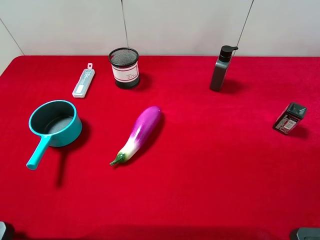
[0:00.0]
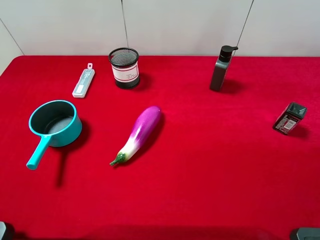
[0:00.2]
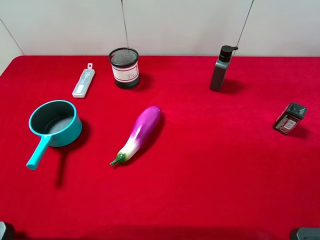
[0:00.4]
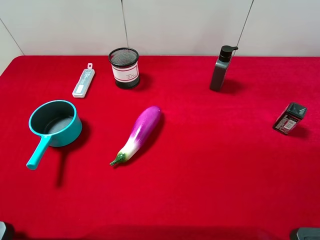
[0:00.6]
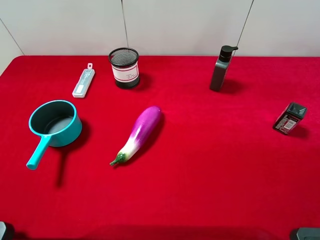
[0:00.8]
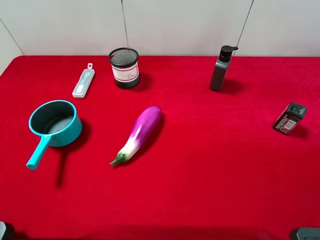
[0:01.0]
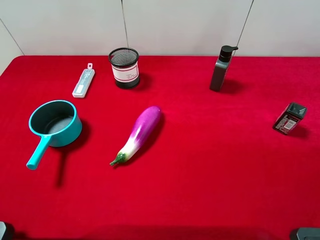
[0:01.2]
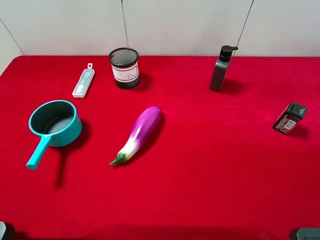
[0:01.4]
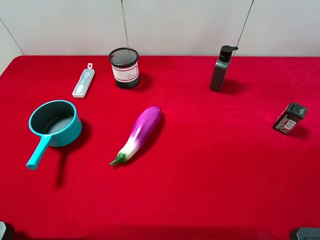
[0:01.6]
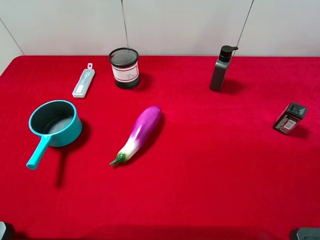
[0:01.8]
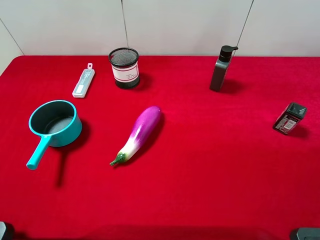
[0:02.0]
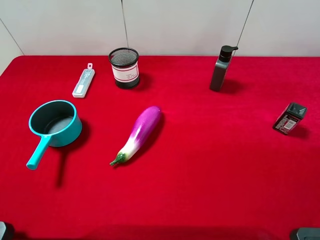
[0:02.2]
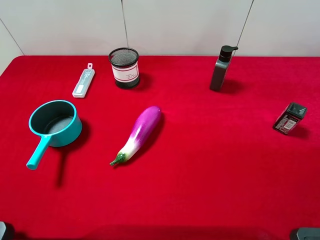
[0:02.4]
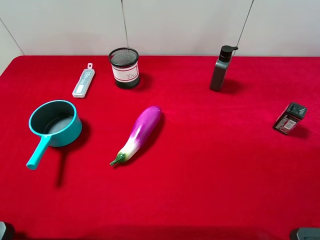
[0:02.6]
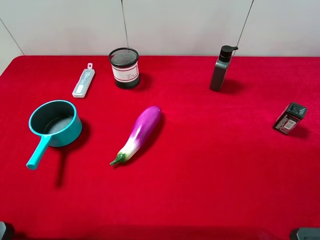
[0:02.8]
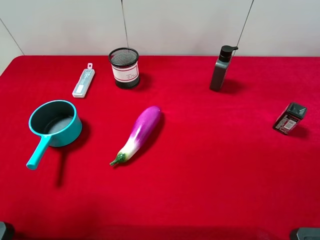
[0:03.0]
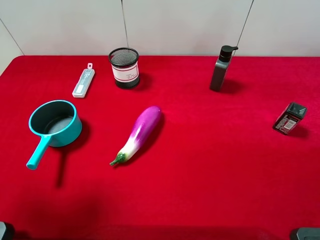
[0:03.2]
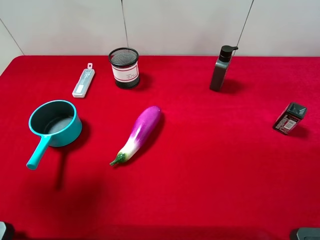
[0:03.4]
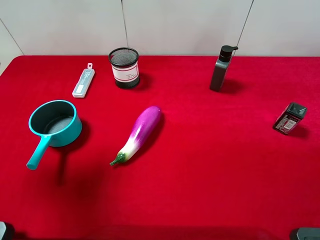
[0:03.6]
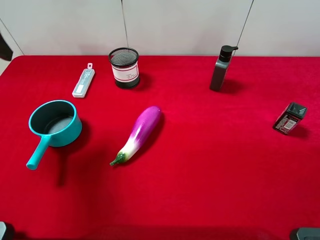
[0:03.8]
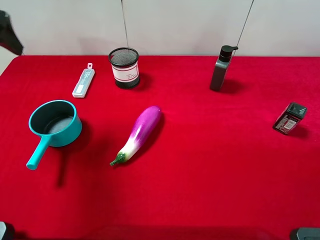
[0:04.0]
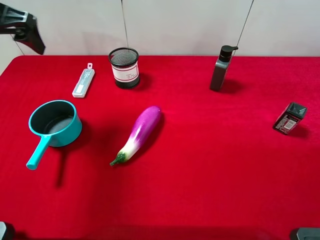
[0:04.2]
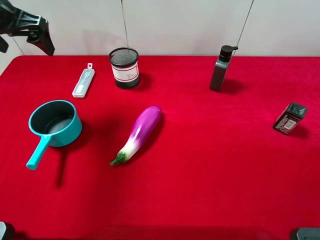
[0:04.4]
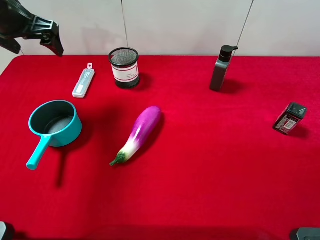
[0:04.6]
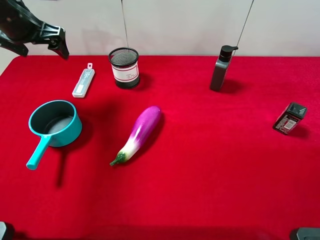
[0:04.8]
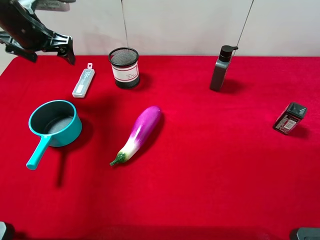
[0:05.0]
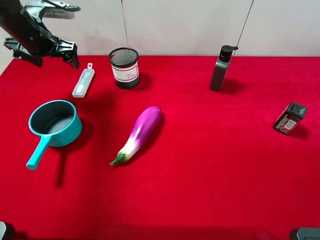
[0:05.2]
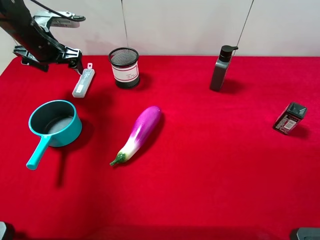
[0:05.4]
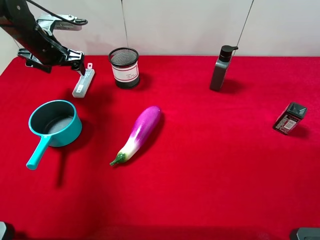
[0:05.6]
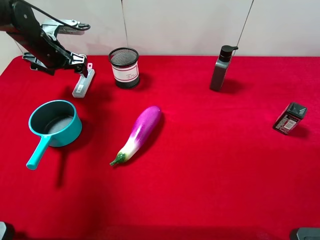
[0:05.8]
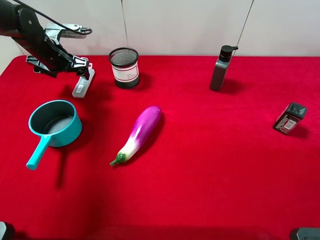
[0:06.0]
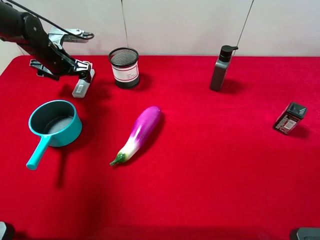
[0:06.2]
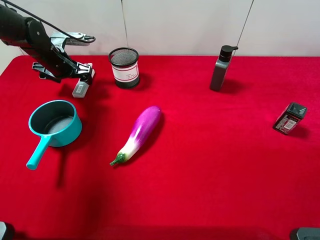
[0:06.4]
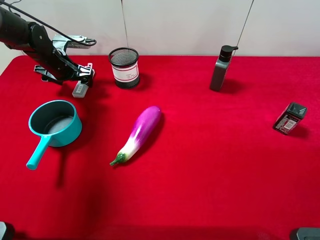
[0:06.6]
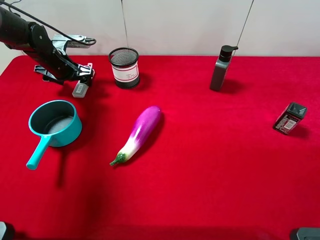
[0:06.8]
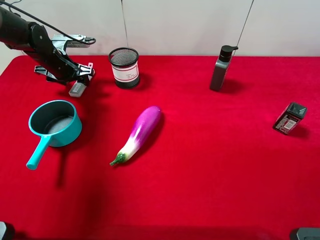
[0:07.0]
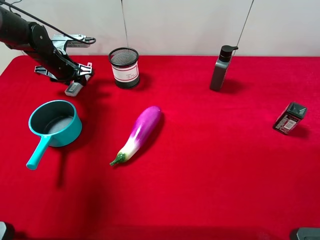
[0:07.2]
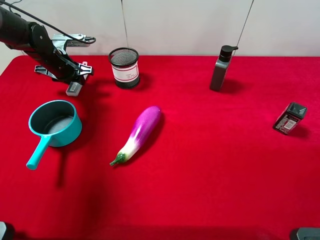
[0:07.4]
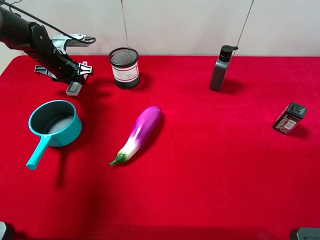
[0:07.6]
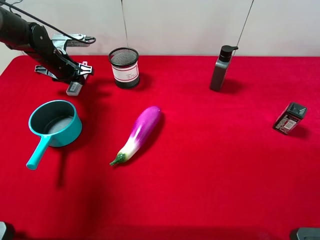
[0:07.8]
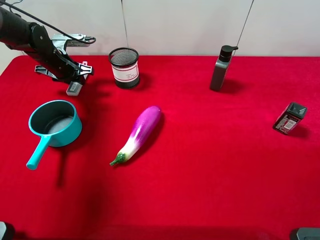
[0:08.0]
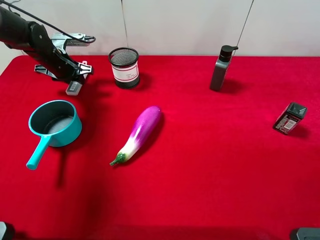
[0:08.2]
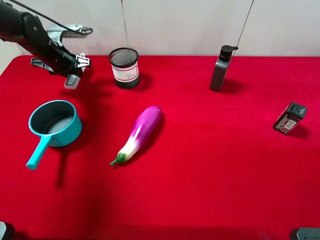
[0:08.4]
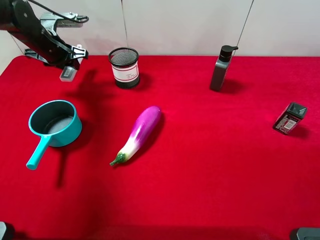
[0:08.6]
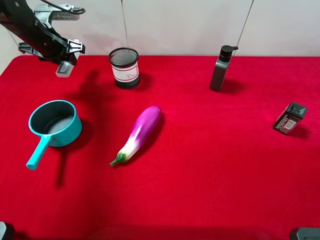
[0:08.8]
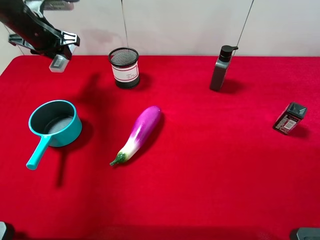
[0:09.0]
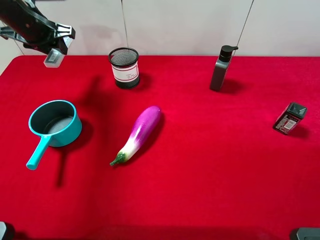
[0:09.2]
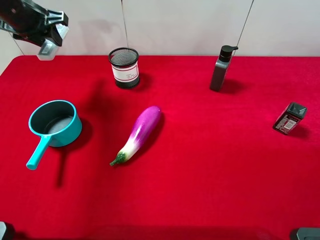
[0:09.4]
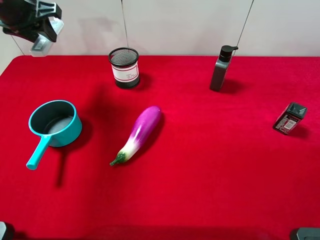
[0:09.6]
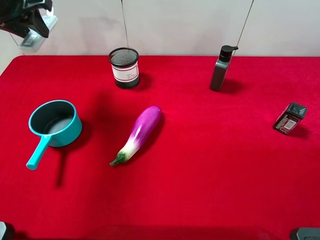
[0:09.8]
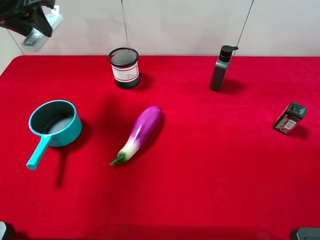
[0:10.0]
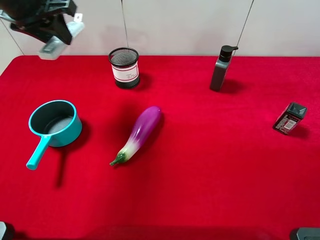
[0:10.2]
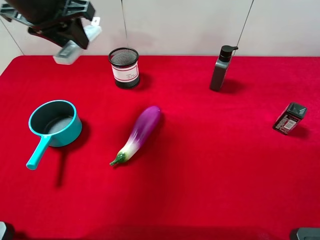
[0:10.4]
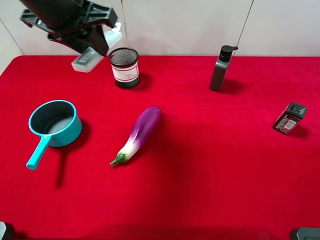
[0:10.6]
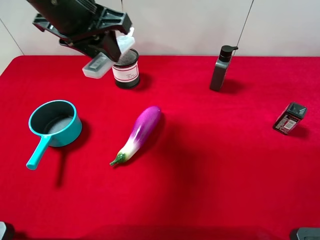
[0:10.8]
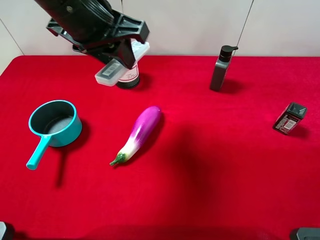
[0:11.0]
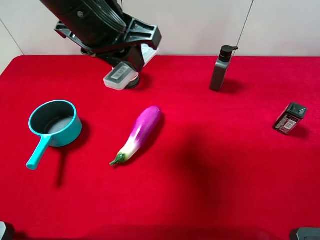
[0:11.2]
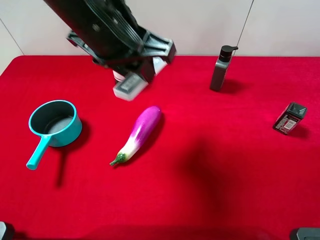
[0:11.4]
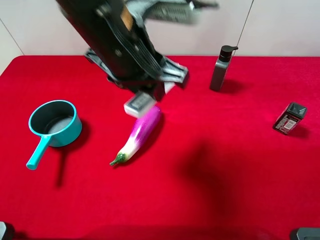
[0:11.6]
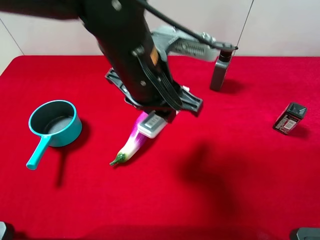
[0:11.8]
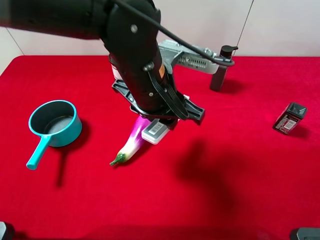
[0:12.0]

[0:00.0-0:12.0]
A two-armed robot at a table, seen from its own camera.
Task of the whole recording: the gripper move the object.
Step, 0:00.0 to 0:07.4: Grasp the compasses with the left gripper.
0:00.0 to 0:01.6: Both grippers stay about where they are.
0:03.0 to 0:04.4: The left gripper travels forward by roughly 25 cm.
0:04.4 to 0:06.0: The left gripper shifts about 15 cm downward and forward.
0:06.0 to 0:07.6: The left gripper closes up.
0:07.6 to 0:09.0: The left gripper moves upward, approximately 10 cm.
0:09.0 to 0:10.4: The left gripper moves backward, upward and to the right, roughly 15 cm.
0:10.4 to 0:12.0: The left gripper goes some 20 cm to the right, downward and backward.

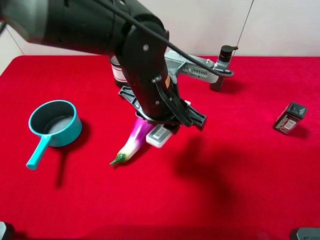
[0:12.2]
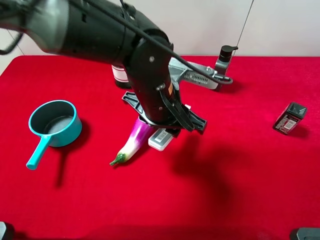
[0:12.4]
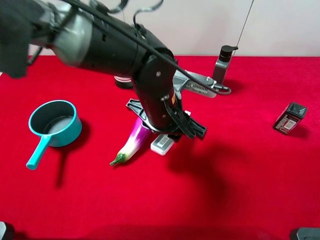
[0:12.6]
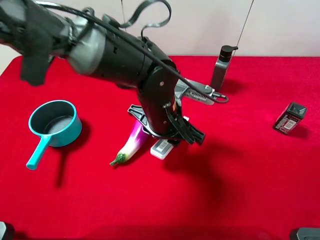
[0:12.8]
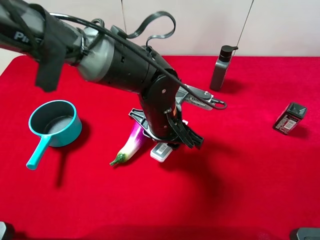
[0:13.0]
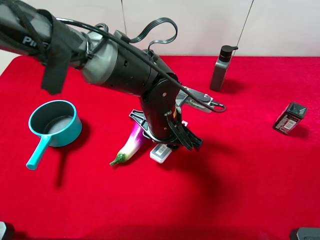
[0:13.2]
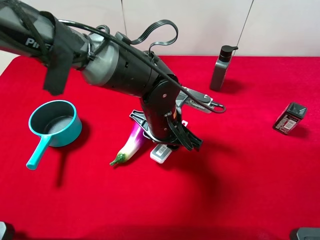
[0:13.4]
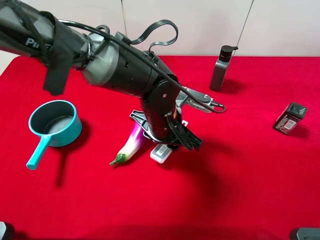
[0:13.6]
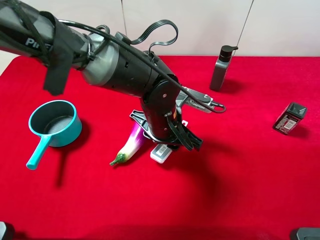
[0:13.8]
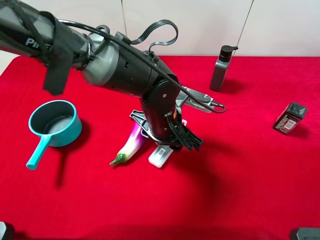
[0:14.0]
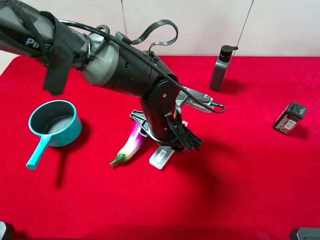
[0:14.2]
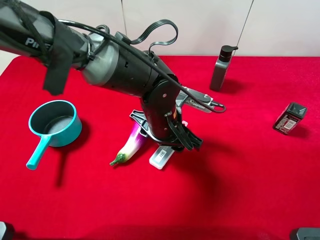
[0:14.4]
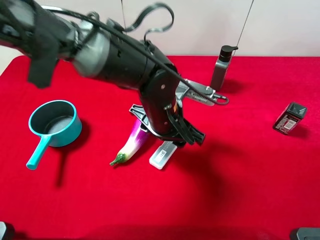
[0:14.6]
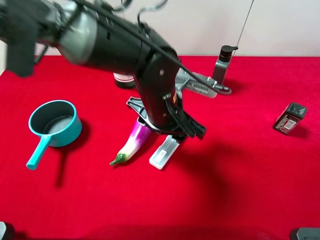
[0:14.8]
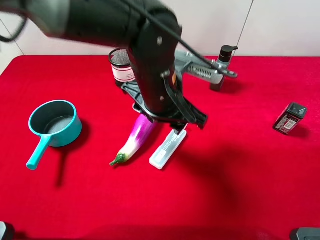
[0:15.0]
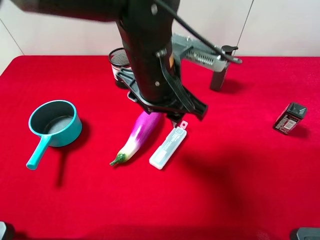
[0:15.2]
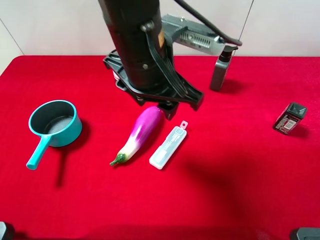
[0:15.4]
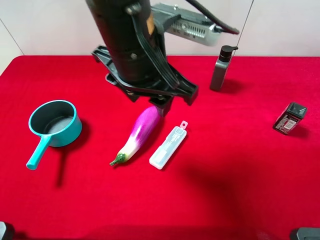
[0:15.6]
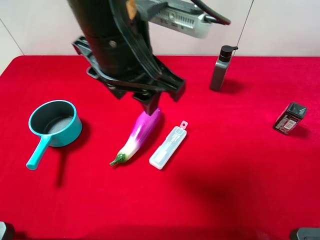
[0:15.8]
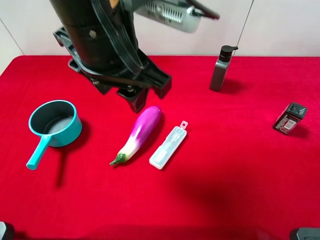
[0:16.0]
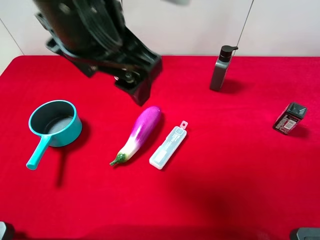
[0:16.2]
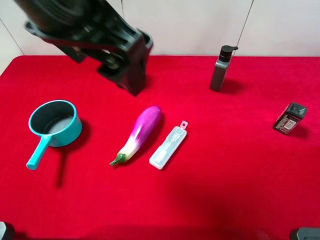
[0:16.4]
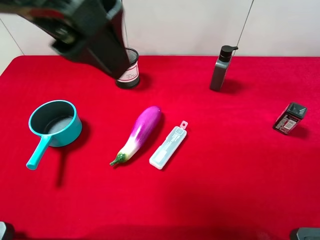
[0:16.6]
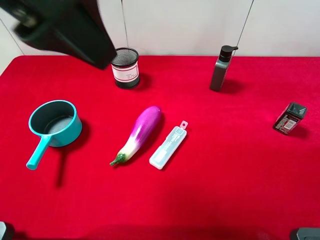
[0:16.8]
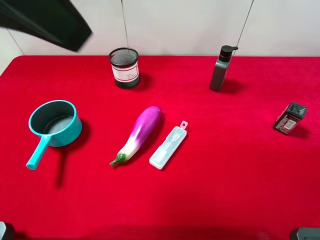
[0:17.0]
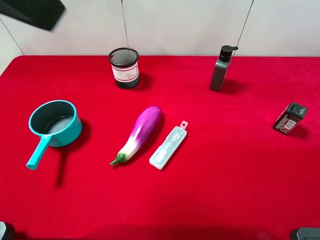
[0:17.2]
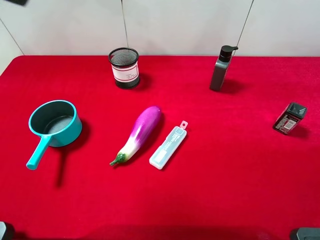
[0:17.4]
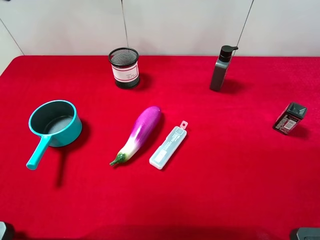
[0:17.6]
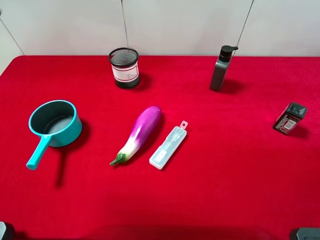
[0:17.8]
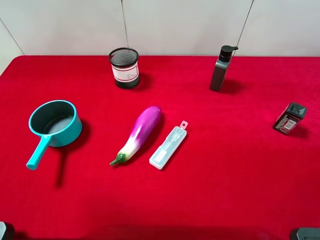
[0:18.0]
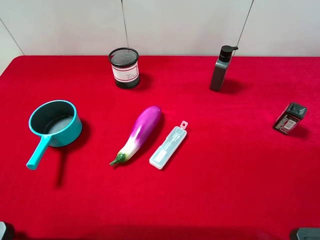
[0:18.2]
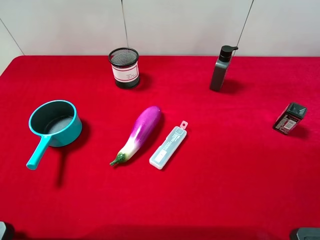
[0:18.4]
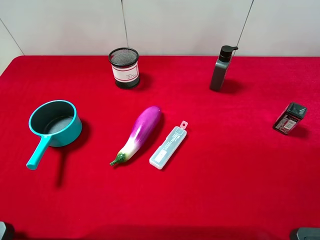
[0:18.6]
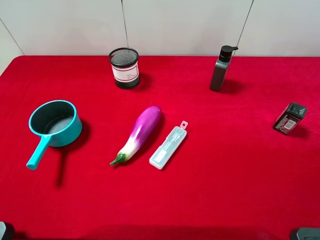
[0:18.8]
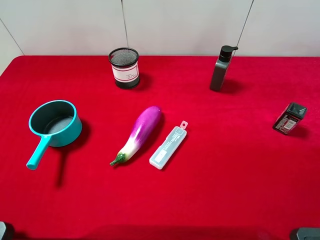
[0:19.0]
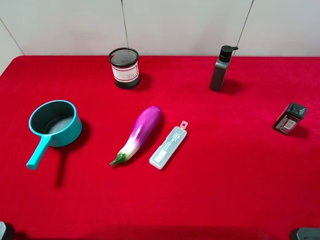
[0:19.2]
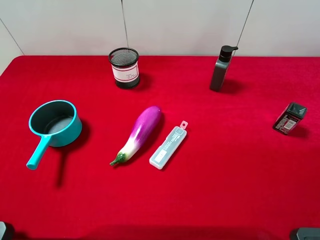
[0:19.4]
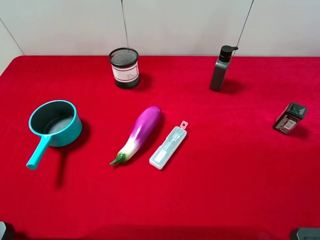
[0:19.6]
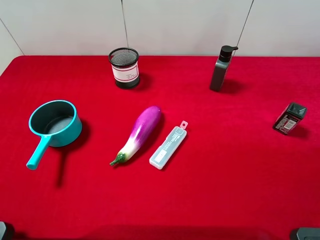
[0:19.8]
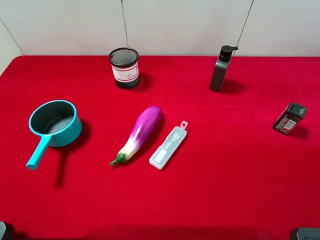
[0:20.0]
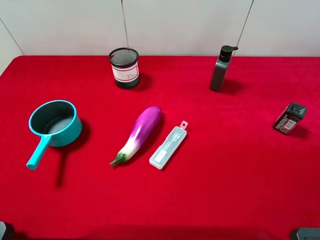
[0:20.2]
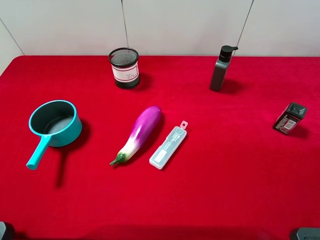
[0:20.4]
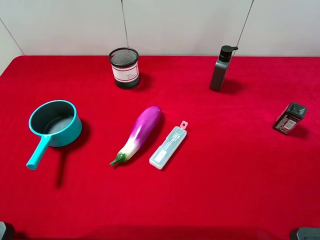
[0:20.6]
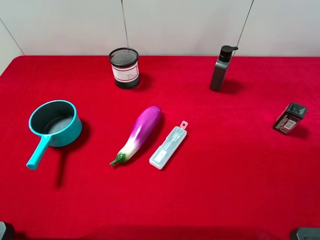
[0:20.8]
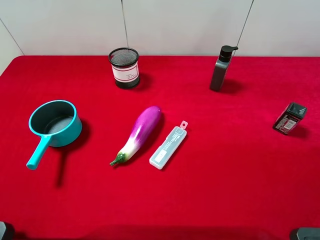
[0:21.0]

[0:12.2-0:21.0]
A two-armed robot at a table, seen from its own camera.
Task of the whole recording: the gripper move the object.
Step, 0:12.2 to 0:14.8: Place the compasses on the table with the left gripper.
0:12.2 to 0:13.6: The left gripper travels downward by about 10 cm.
0:13.6 to 0:15.2: The left gripper shifts about 10 cm upward.
0:15.2 to 0:16.6: The left gripper shifts approximately 20 cm upward, to the left and backward, and opens its fingers.
0:16.6 to 0:18.0: The left gripper is displaced to the left by roughly 15 cm.

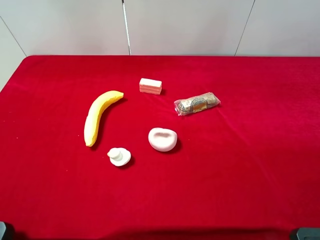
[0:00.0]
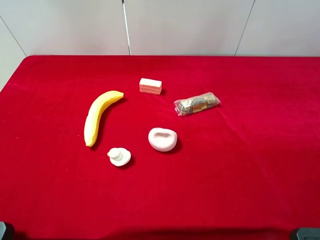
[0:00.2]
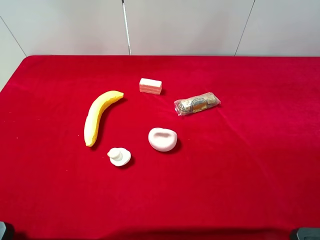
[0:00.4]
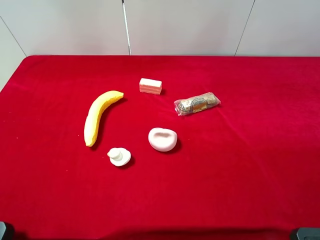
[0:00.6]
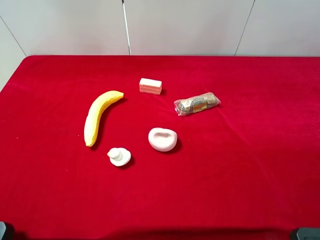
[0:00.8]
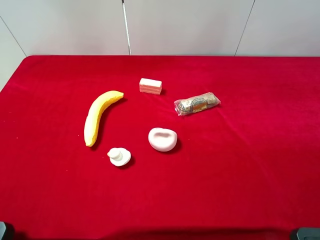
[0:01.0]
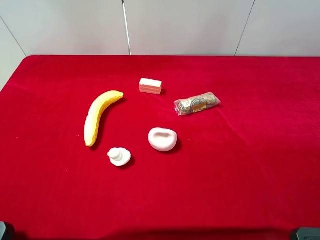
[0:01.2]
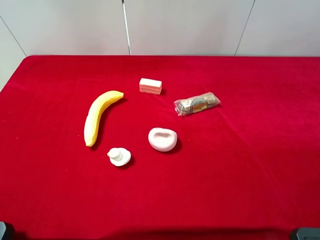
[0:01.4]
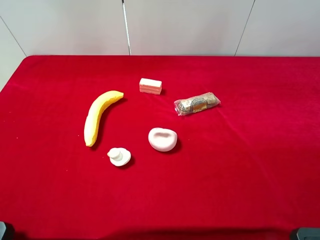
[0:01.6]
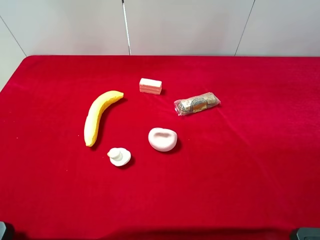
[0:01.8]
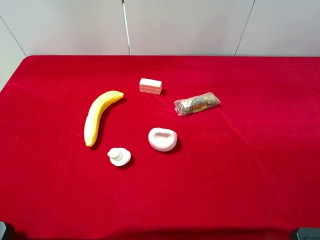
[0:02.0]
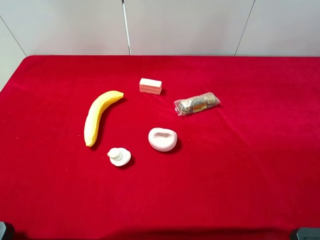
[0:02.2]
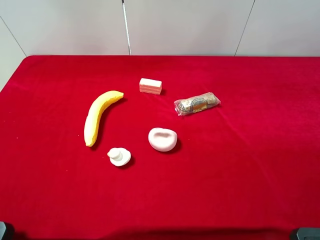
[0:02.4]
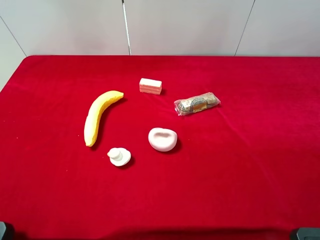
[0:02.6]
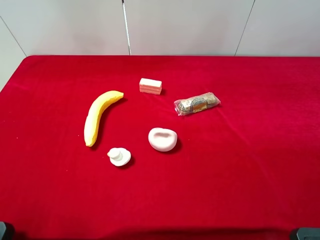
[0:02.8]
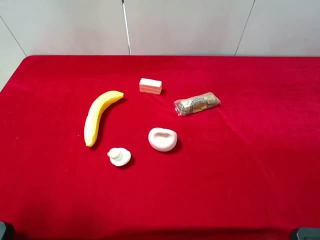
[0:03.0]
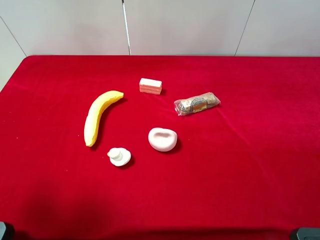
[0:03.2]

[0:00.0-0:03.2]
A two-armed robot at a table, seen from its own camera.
Task of the whole recording: the gripper move the object.
0:00.0 to 0:01.6: The two grippers keep their place.
0:01.6 to 0:03.2: The left gripper moves forward, about 10 cm.
